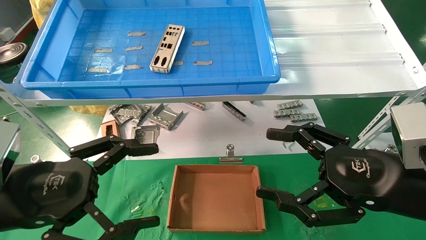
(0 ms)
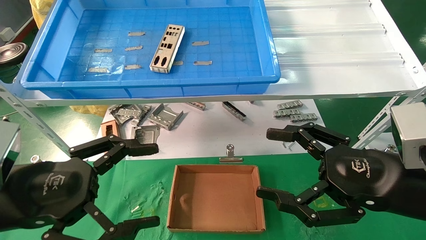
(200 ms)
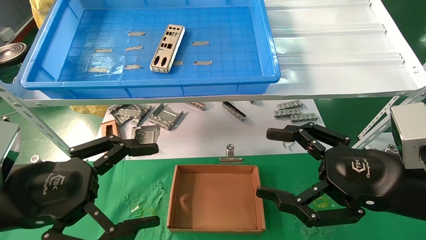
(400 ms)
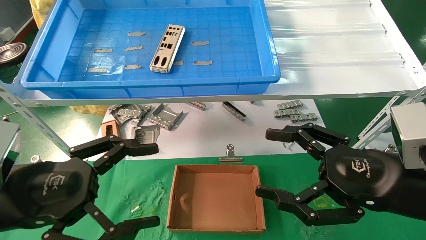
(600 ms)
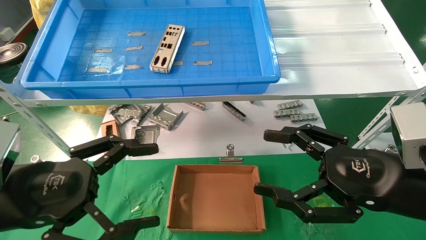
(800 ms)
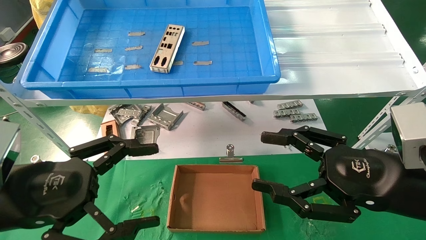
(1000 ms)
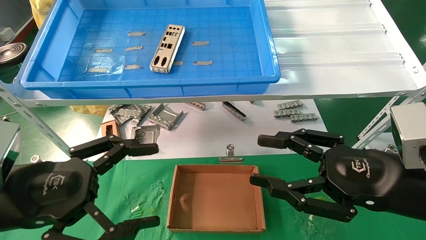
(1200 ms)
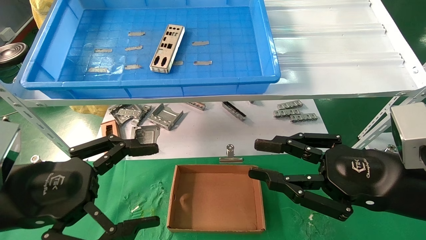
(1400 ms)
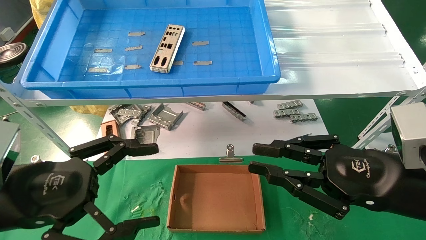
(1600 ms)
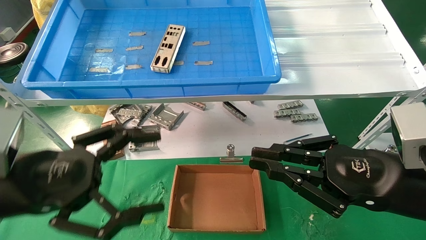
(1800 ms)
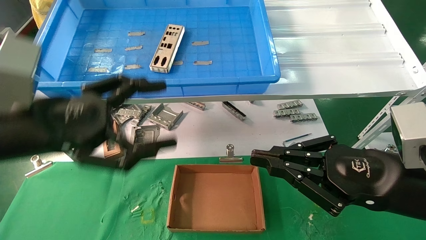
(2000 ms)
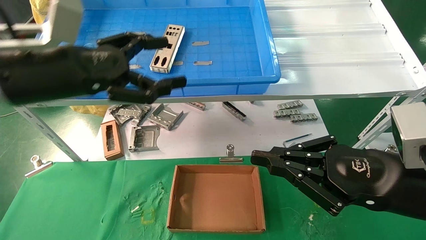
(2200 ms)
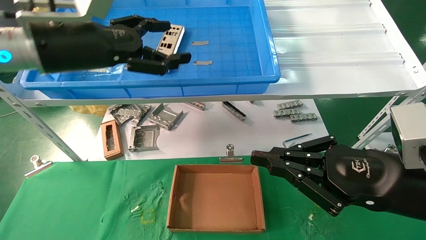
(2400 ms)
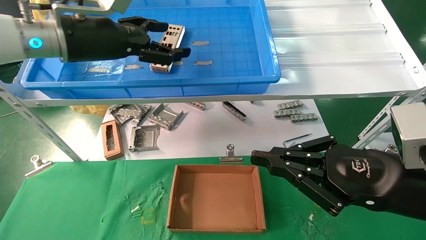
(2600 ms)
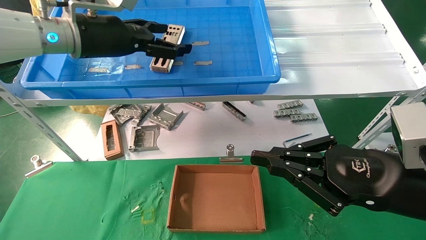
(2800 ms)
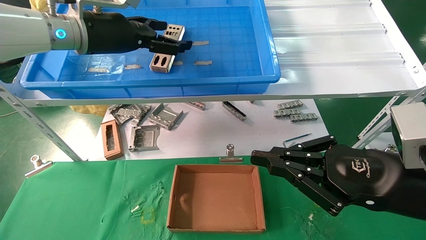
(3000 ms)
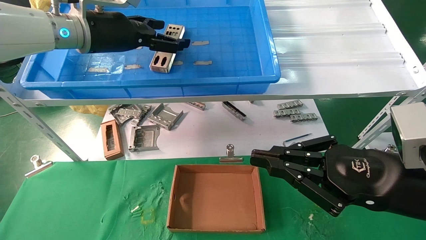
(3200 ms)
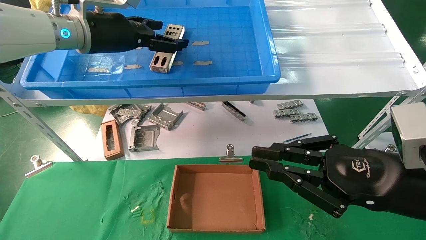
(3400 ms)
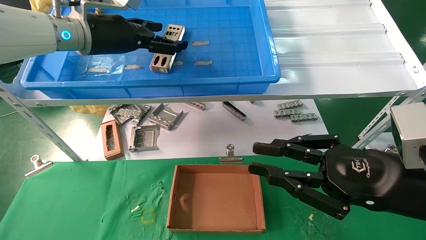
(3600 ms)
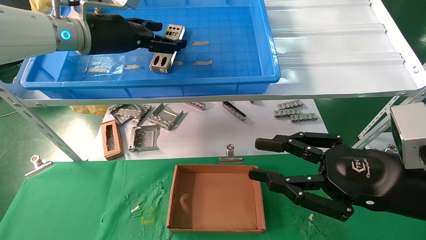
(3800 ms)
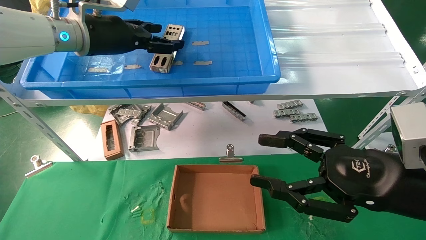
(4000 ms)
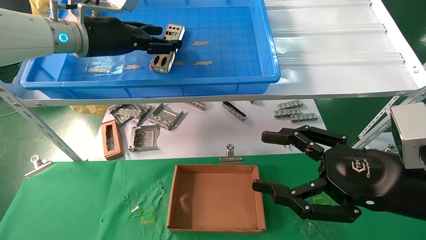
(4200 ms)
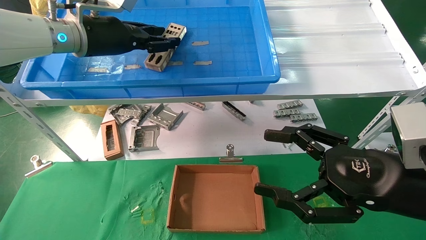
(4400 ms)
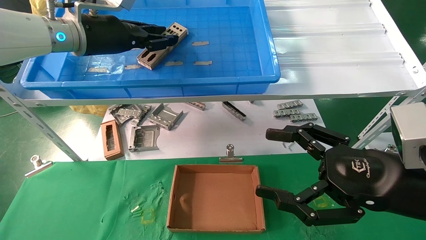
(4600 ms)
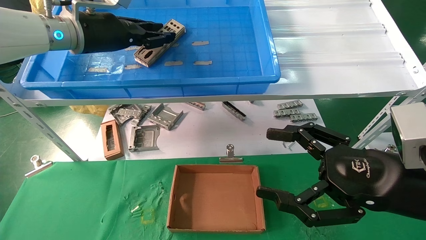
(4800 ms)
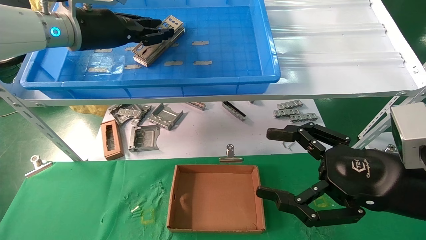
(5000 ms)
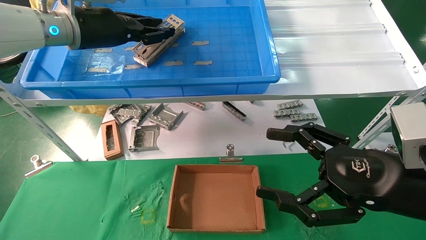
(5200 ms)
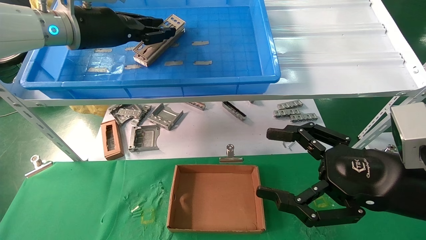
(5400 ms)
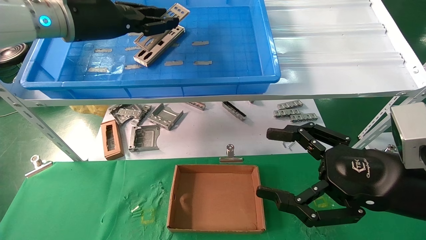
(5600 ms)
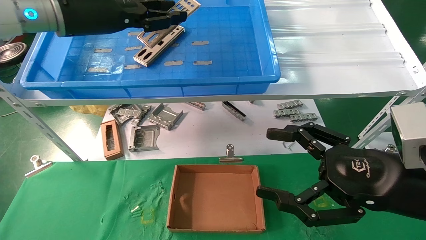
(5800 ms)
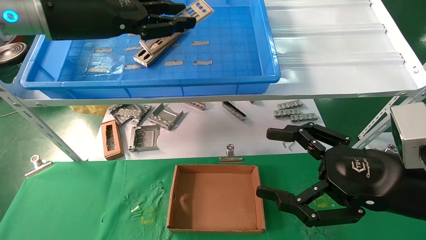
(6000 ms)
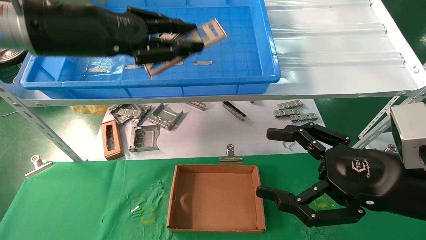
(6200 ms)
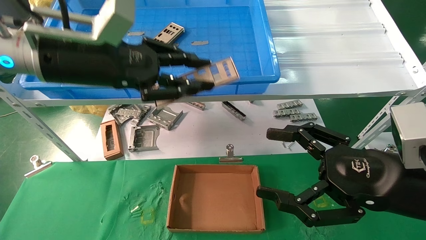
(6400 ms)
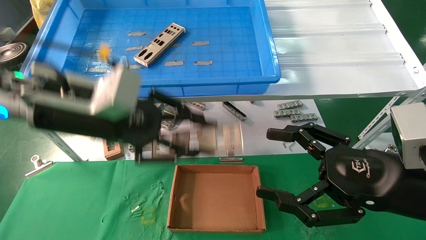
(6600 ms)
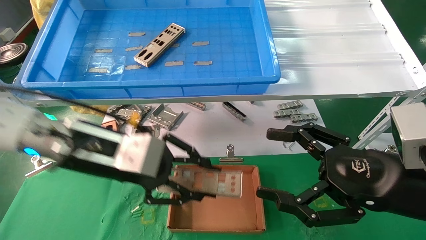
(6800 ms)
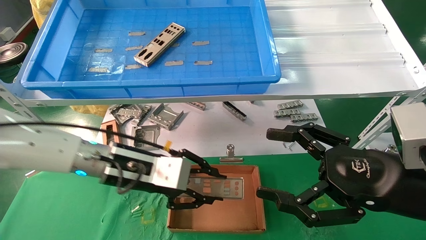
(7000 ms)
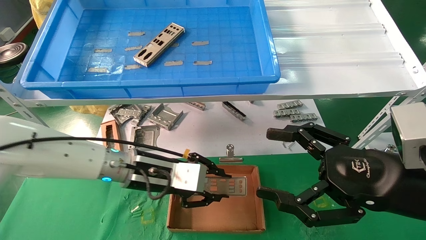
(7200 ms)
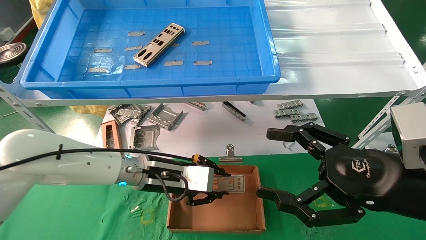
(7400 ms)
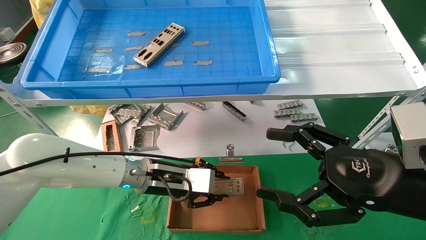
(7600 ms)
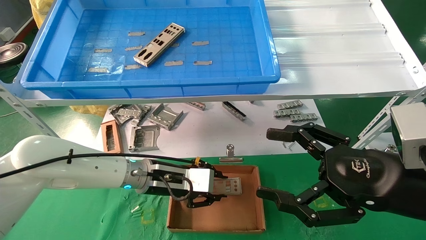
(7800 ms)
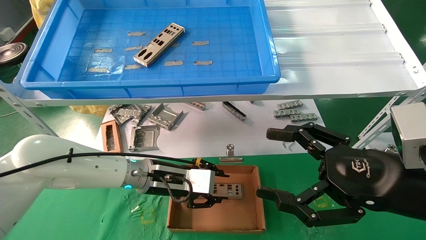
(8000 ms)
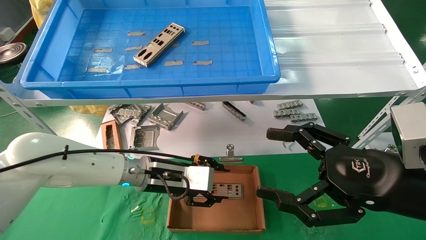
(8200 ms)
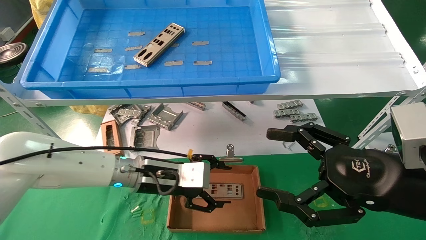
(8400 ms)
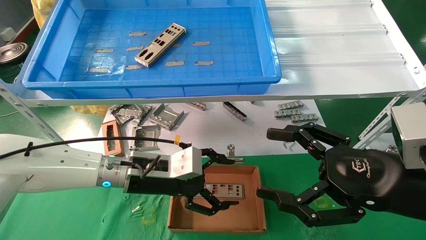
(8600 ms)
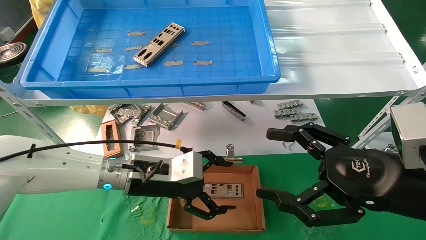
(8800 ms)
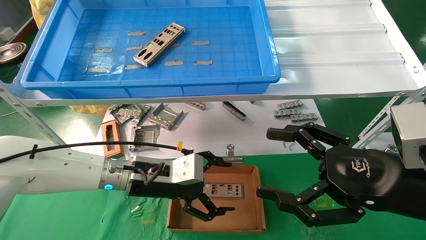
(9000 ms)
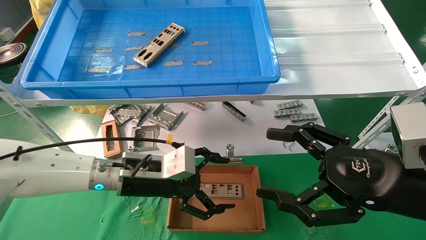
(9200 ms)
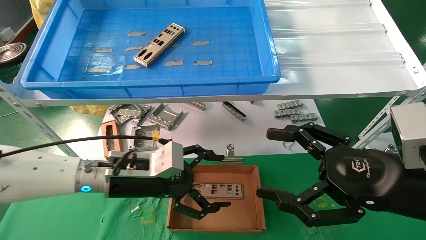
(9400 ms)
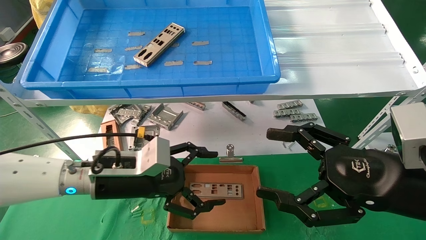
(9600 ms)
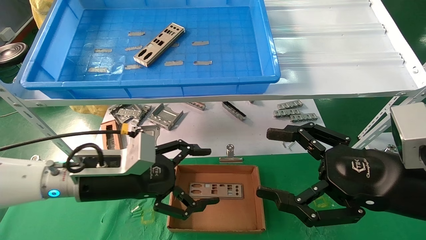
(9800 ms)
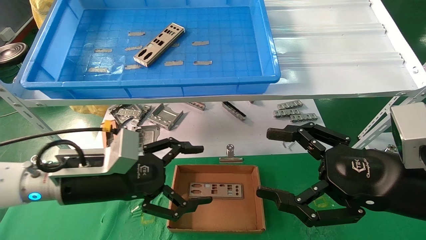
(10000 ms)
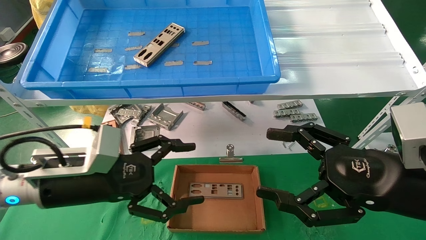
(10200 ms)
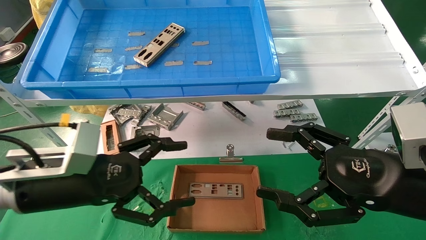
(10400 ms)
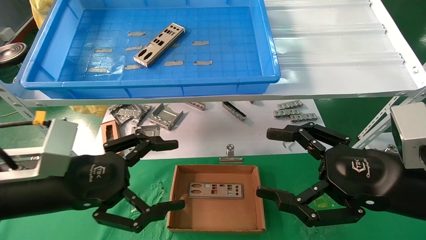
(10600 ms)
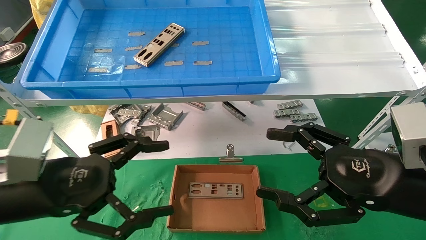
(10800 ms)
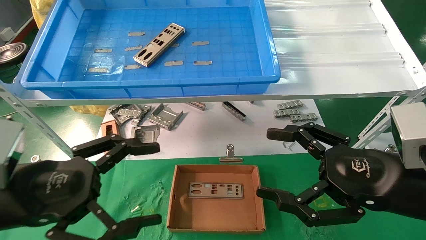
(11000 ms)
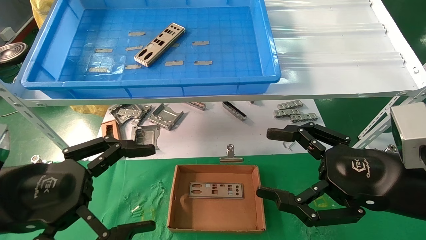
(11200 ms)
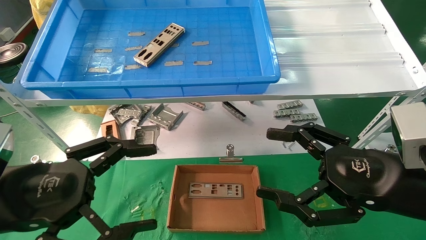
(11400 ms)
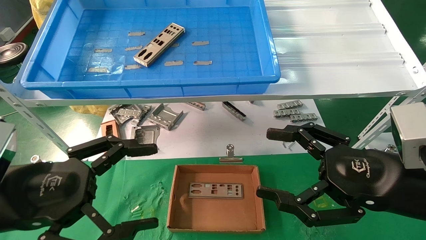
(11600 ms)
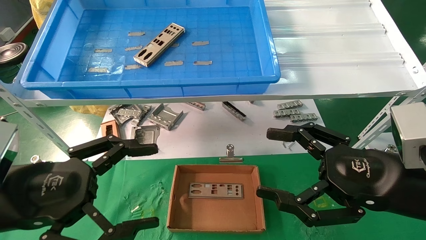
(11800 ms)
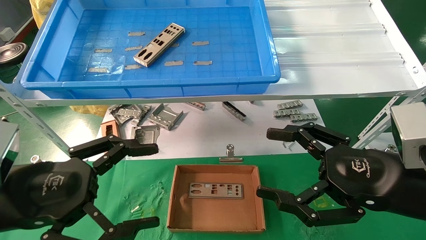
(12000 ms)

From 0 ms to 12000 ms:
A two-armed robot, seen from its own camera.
Task of the whole recording: pick up the parts on the tray and put them in the cardboard box.
Step, from 2200 ms to 4600 ms: Pick up the IO bracket from the container box.
Step, from 4800 ms to 8000 ms: Place the IO bracket into the ingredient slot.
From 0 ms to 1600 ms: The right gripper closes up.
From 1600 ms to 3000 ms: The left gripper moves forward and upward, some 30 cm.
From 3000 ms to 4400 ms: The left gripper closes. Meanwhile the right gripper opens.
From 4400 ms to 6000 ms: The left gripper is displaced backward by roughly 5 cm, and closes up.
From 6000 ms to 7600 ms: The left gripper moves downward, roughly 30 cm.
From 7600 ms to 9000 ms: The left gripper opens.
From 9000 ms to 10400 ms: The left gripper travels to the left and backward by roughly 15 cm.
From 10400 ms to 12000 ms: The left gripper heads backward, covering roughly 5 cm.

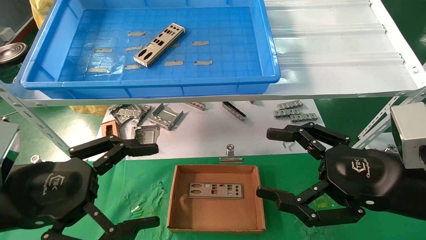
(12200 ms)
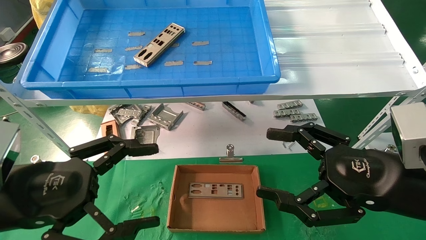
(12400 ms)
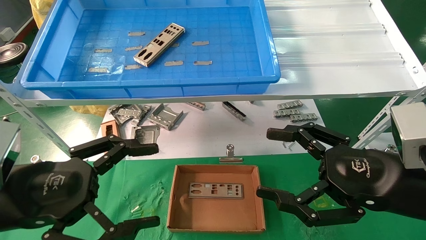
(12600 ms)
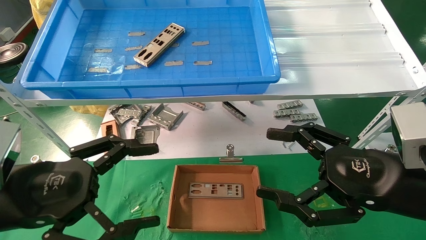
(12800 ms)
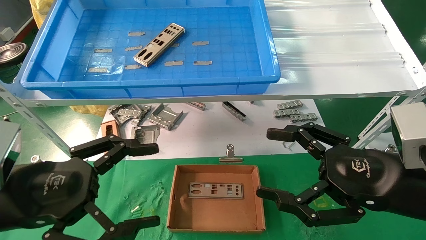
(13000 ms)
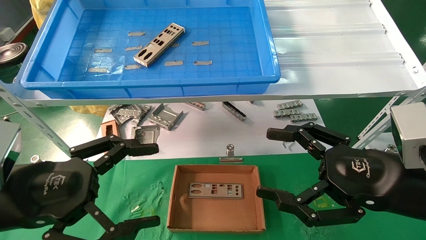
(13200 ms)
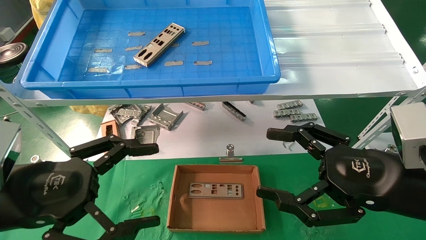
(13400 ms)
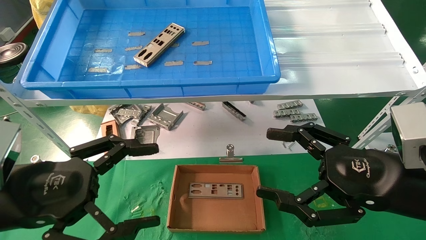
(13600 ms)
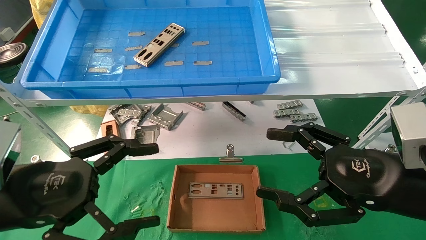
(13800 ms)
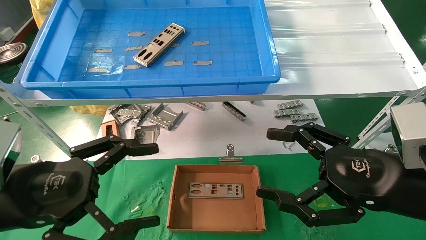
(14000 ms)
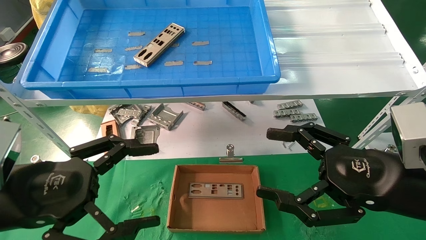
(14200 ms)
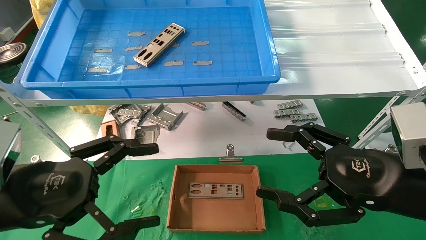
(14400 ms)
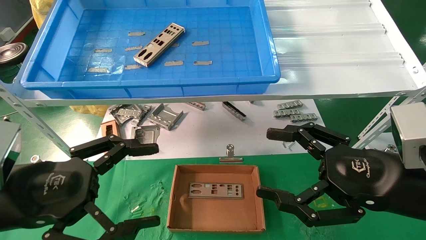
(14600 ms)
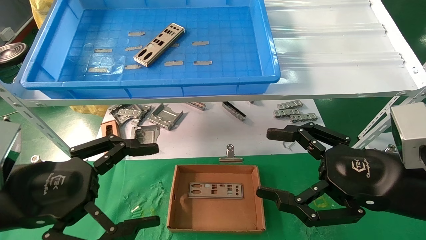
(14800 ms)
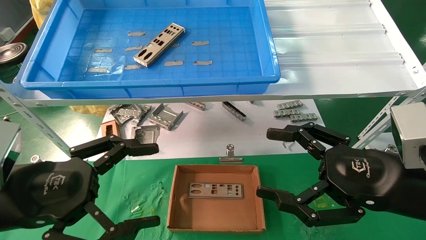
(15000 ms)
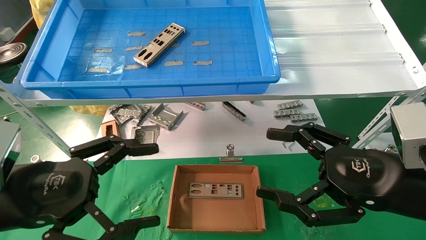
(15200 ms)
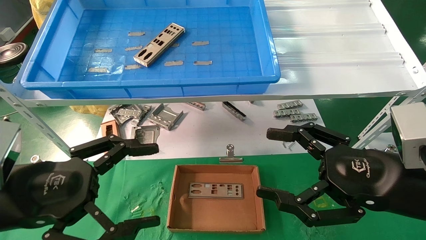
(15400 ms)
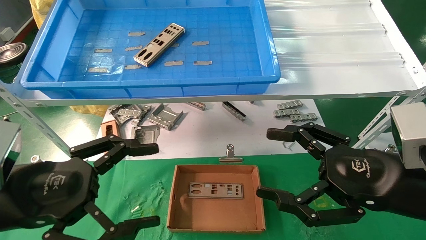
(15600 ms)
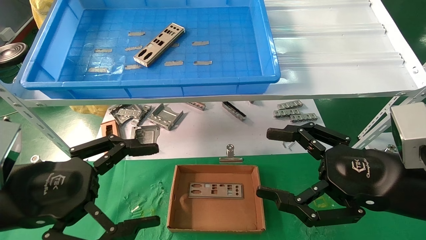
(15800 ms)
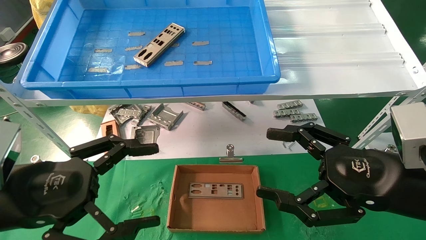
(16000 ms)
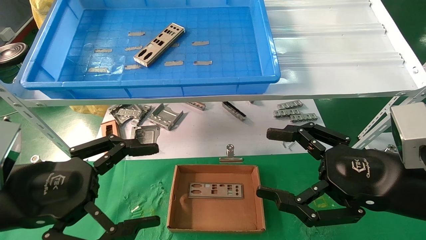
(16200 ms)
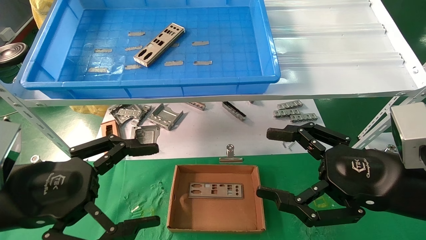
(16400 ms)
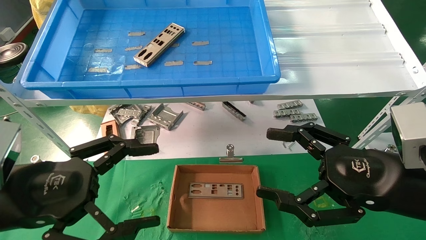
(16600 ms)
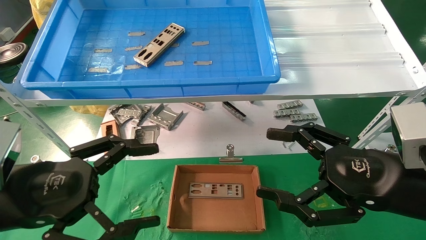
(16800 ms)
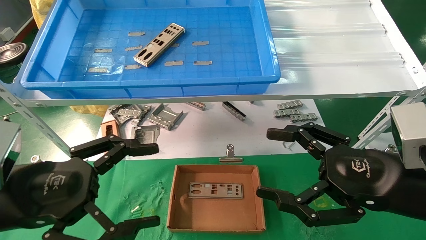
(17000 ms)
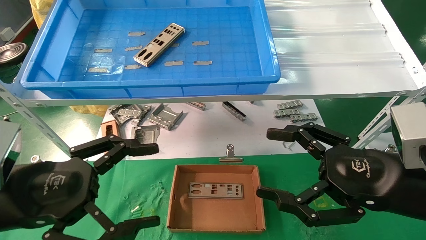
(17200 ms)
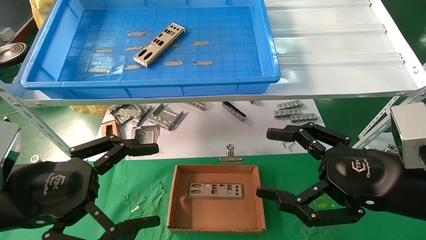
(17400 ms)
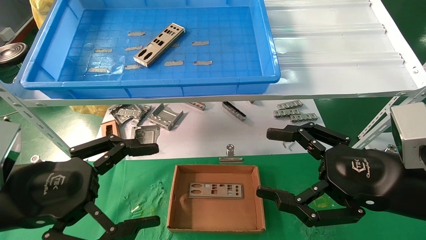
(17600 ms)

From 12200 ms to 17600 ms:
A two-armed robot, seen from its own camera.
Task of the whole recording: pick up the parts on the tray and put them in the cardboard box.
From 12200 ms to 17600 ms: The two grippers keep their place.
